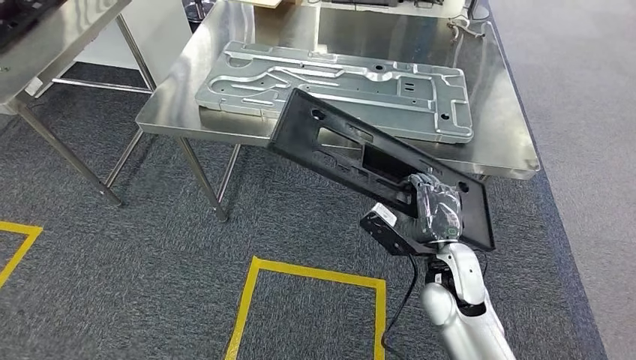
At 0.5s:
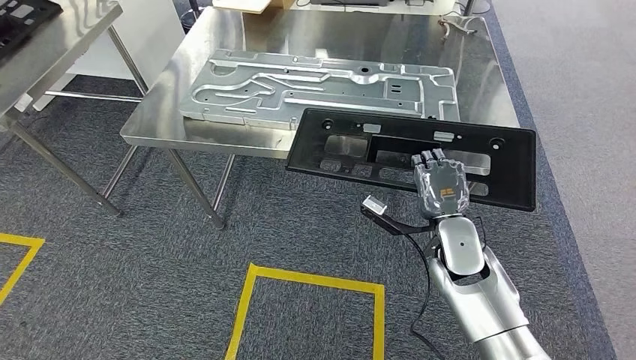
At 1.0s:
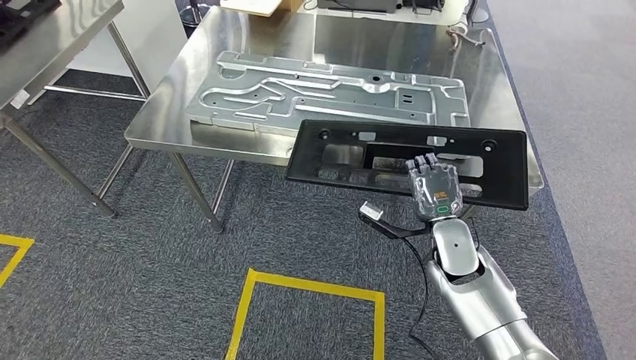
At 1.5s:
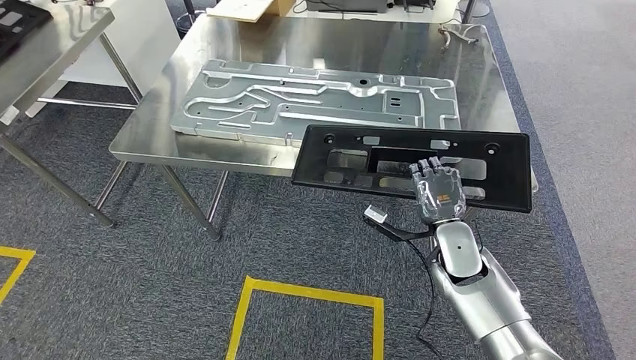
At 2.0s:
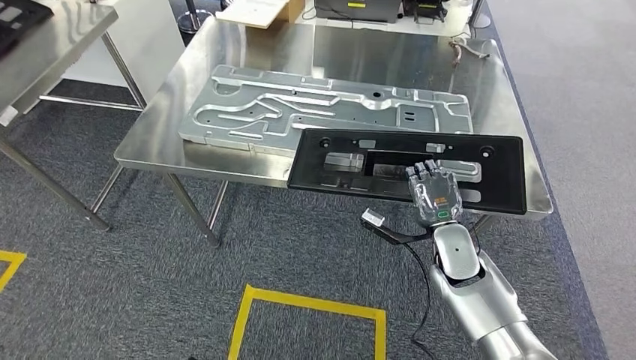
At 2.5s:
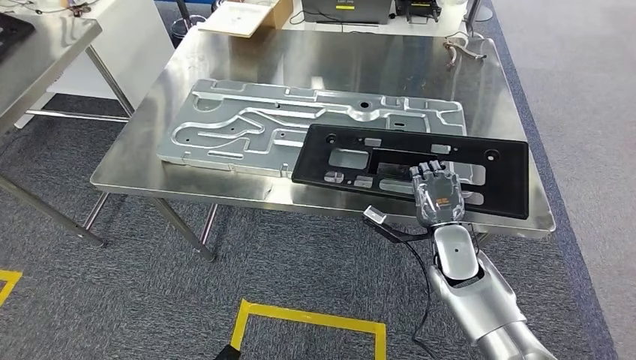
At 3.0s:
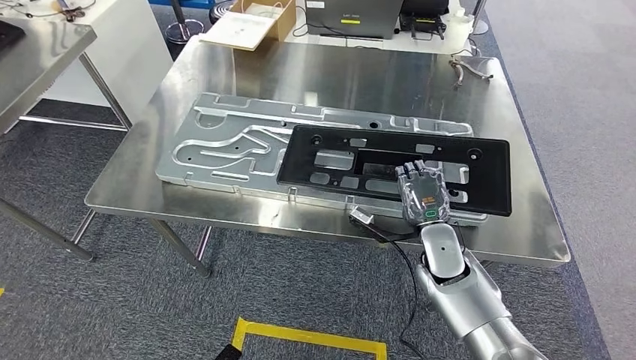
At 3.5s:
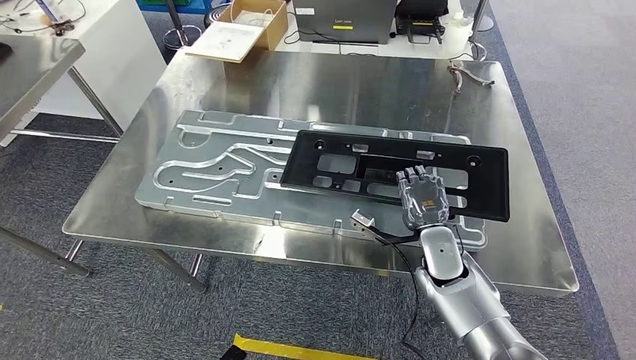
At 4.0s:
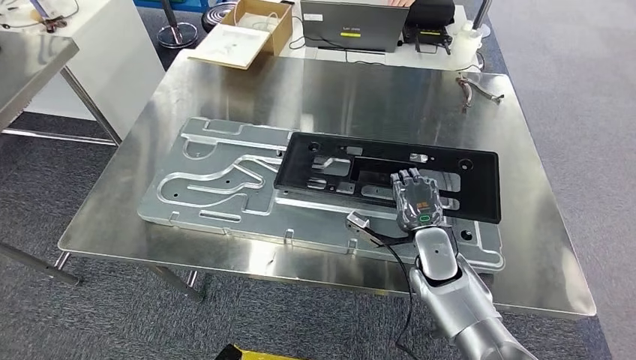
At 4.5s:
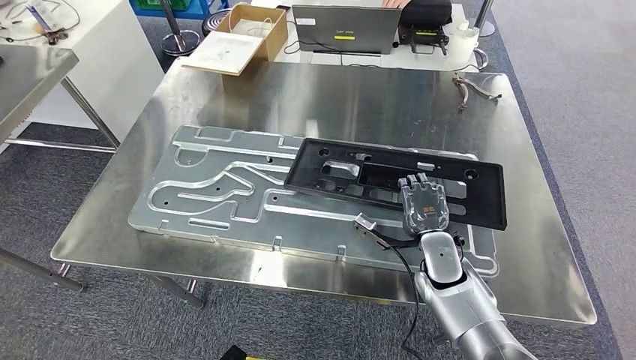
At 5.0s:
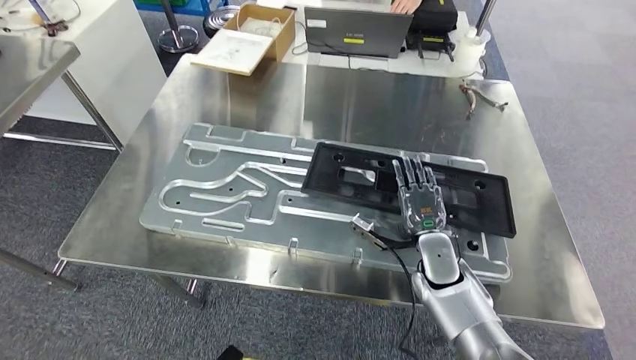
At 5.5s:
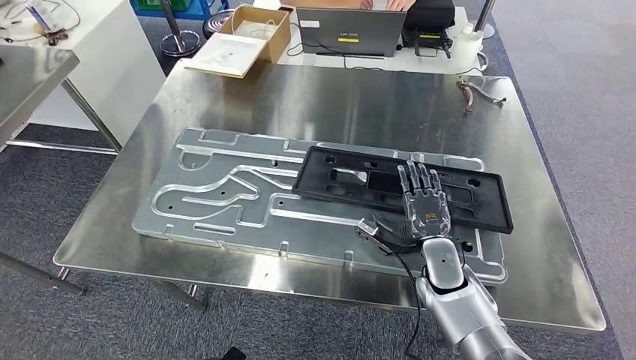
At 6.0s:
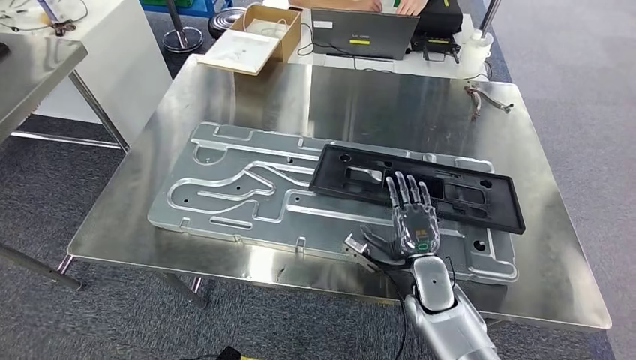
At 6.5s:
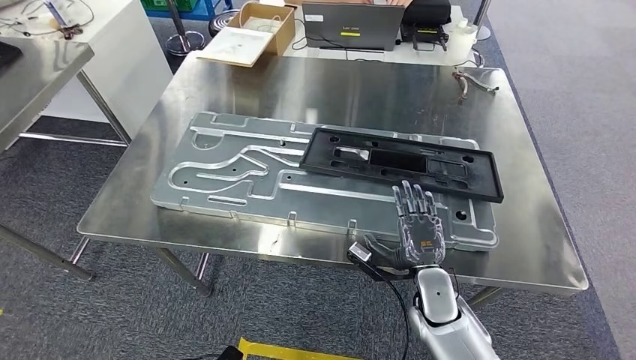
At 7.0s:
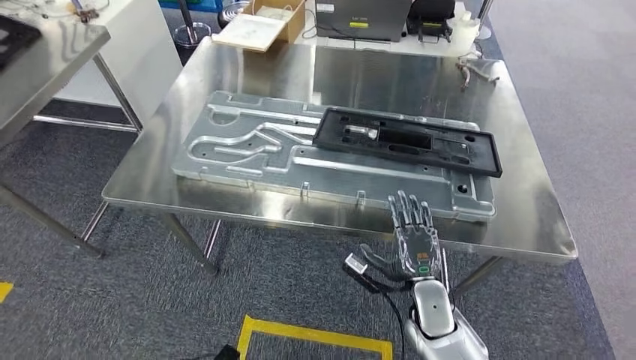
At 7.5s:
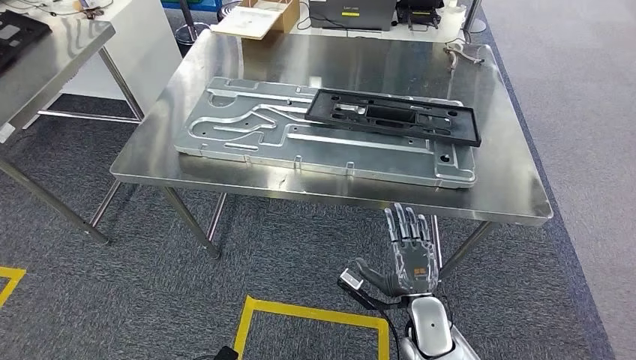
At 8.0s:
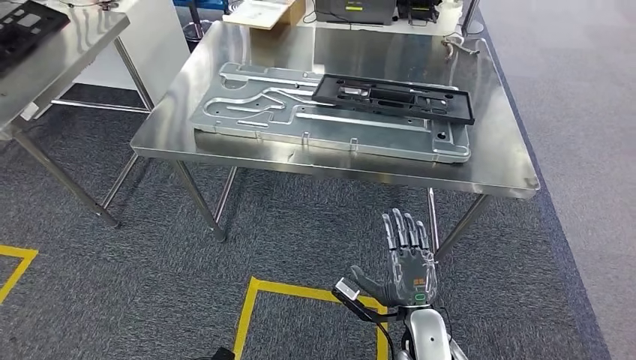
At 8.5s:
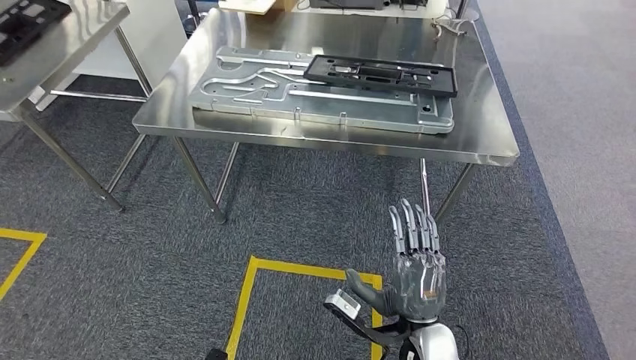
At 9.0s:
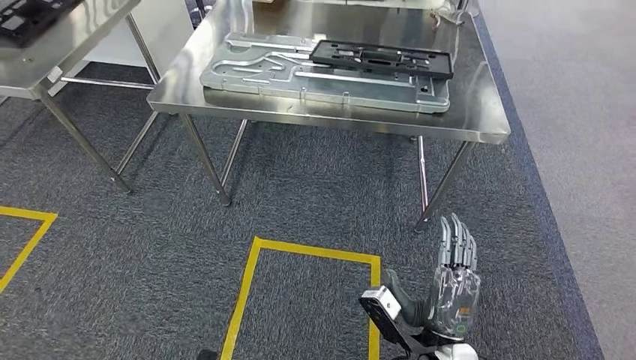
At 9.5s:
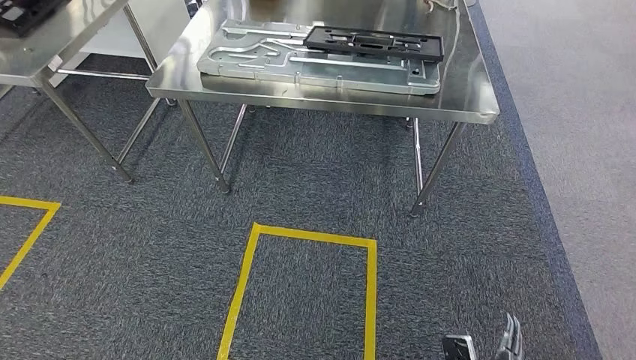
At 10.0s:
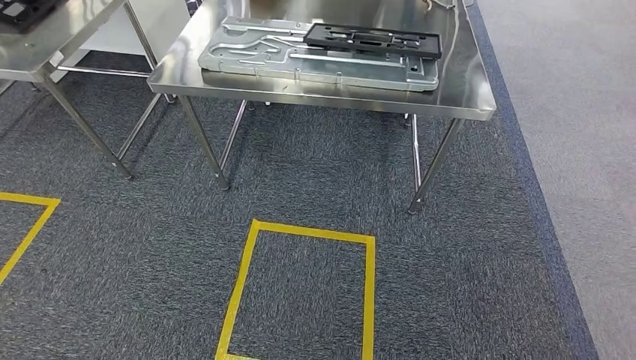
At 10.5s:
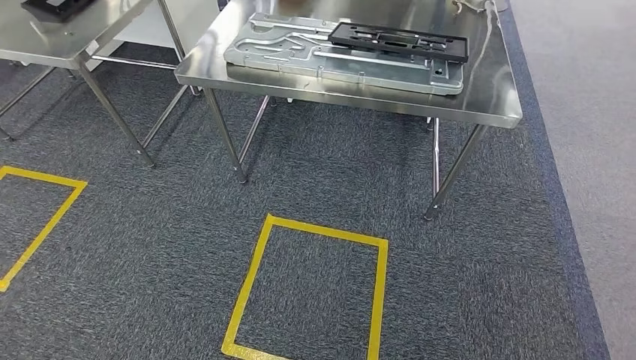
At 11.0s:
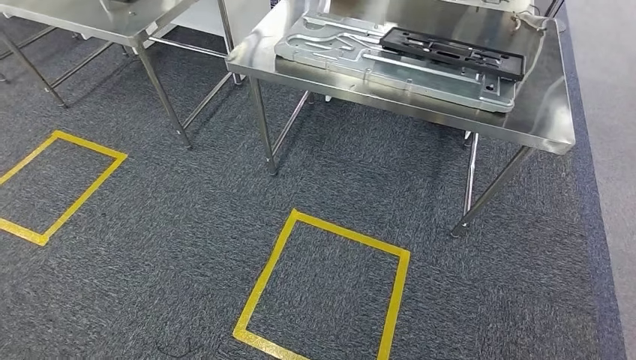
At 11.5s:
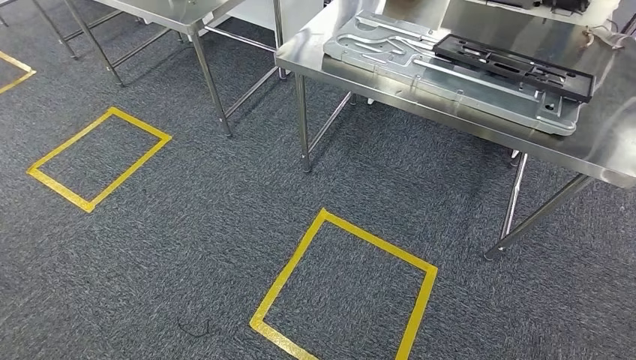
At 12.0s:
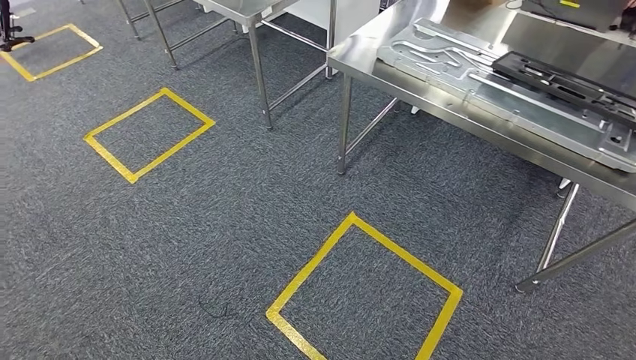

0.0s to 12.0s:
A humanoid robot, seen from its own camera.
Step, 0.0s to 7.0s: Insert the large material into the corresponding slot on the workbench.

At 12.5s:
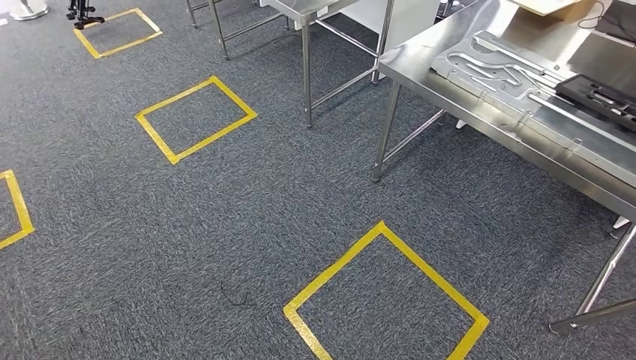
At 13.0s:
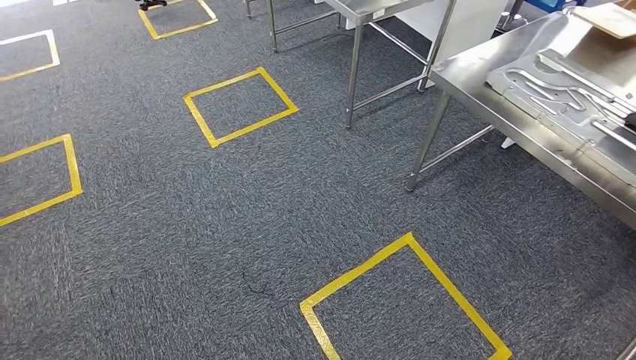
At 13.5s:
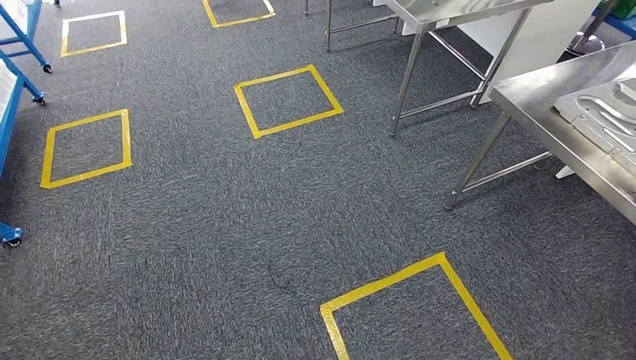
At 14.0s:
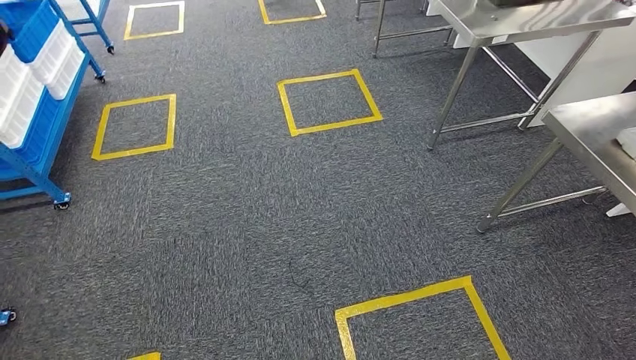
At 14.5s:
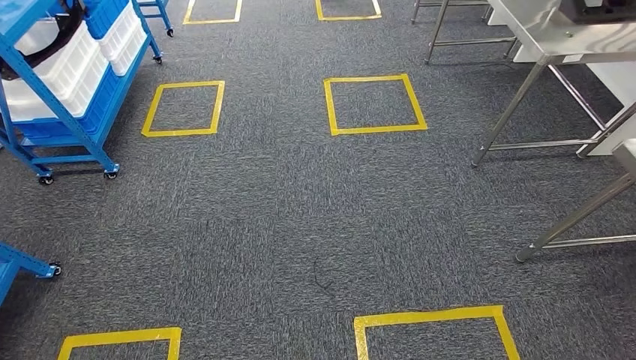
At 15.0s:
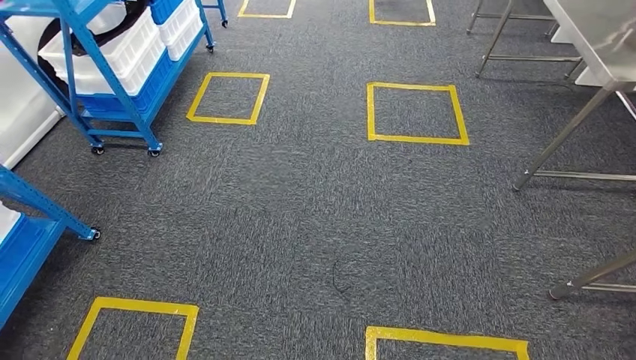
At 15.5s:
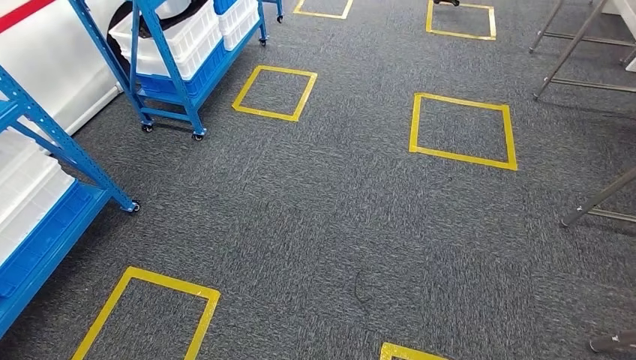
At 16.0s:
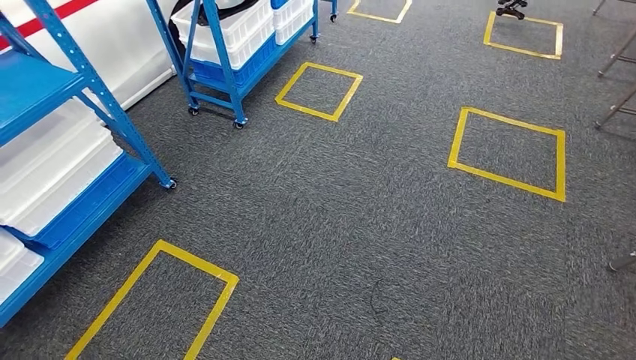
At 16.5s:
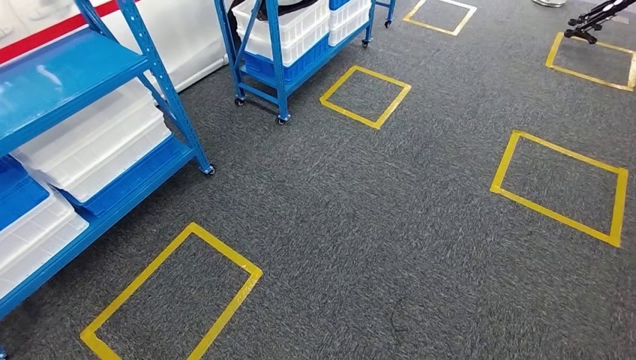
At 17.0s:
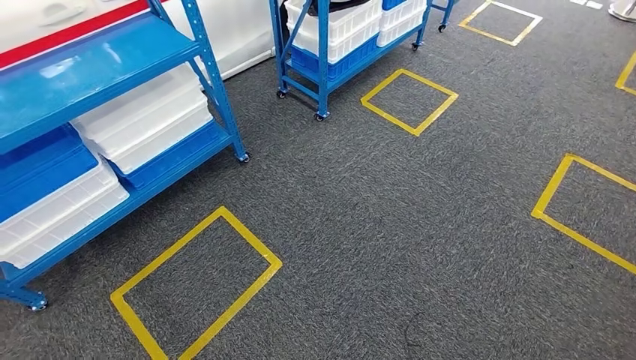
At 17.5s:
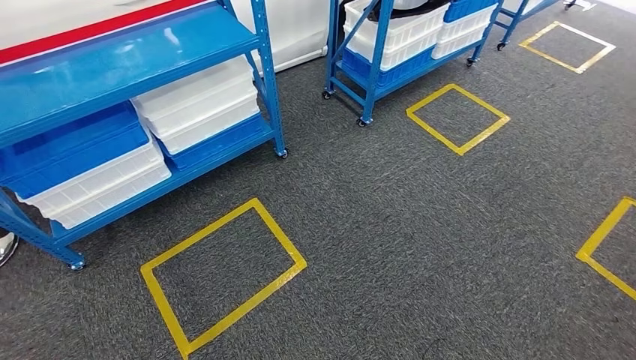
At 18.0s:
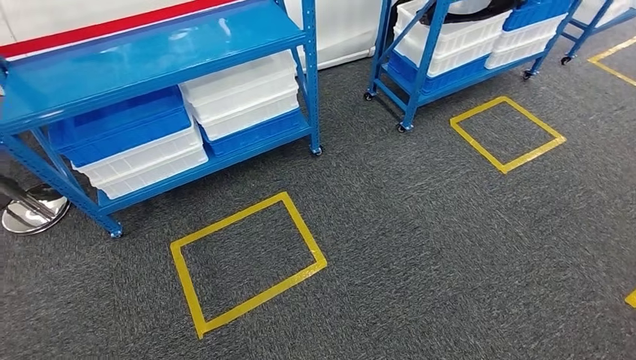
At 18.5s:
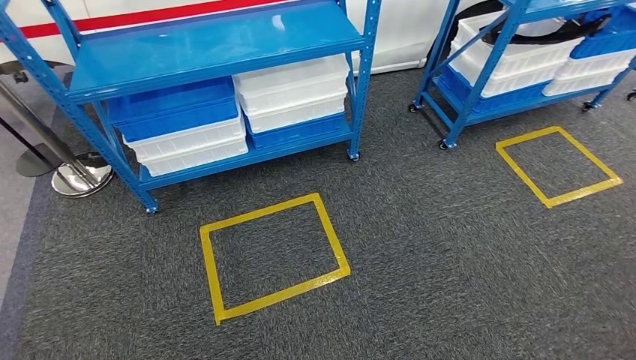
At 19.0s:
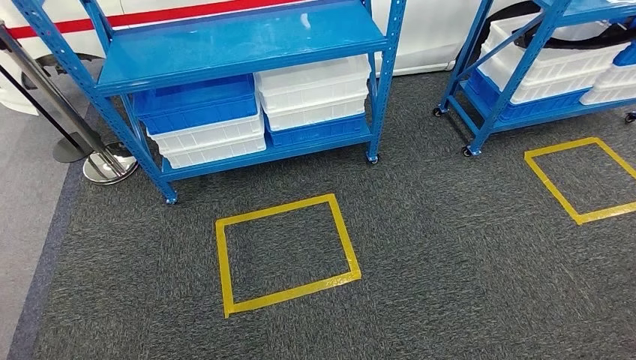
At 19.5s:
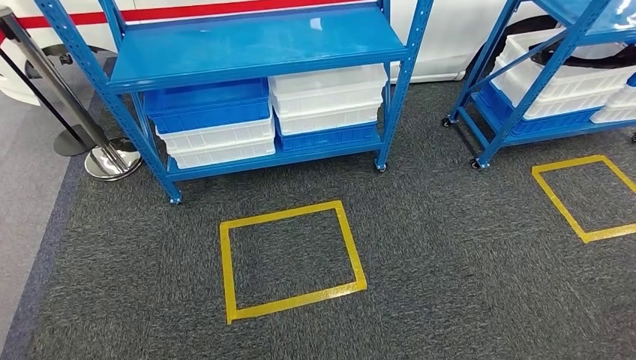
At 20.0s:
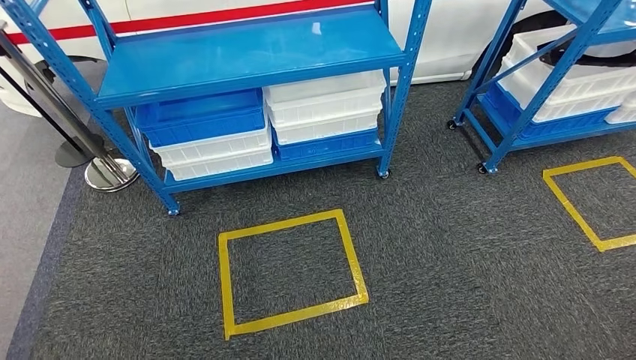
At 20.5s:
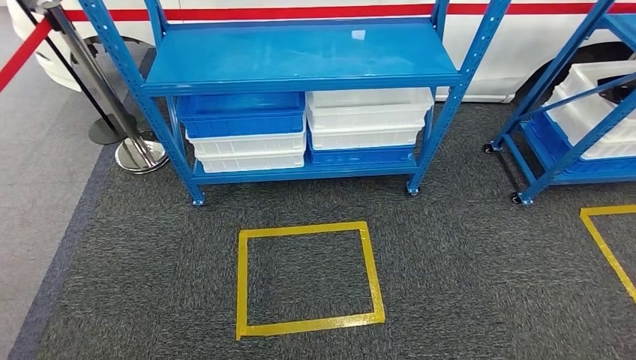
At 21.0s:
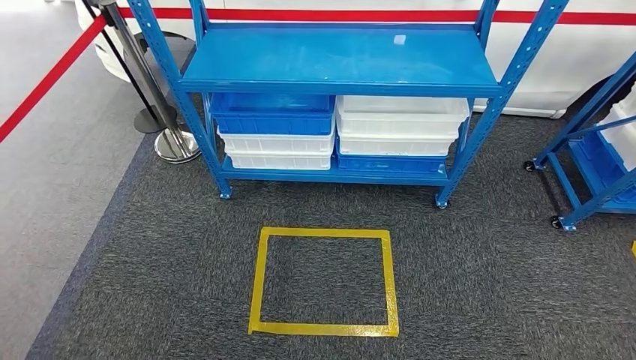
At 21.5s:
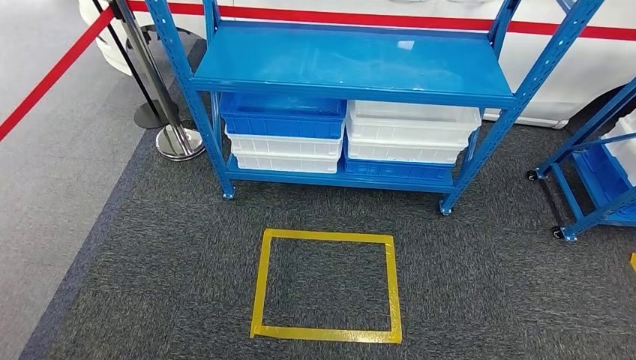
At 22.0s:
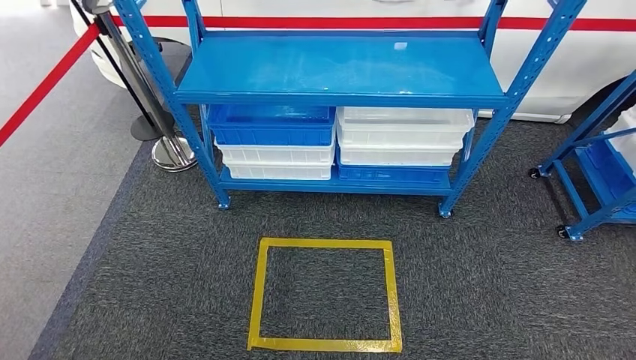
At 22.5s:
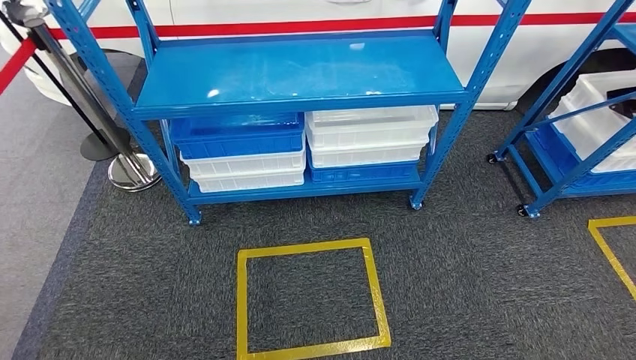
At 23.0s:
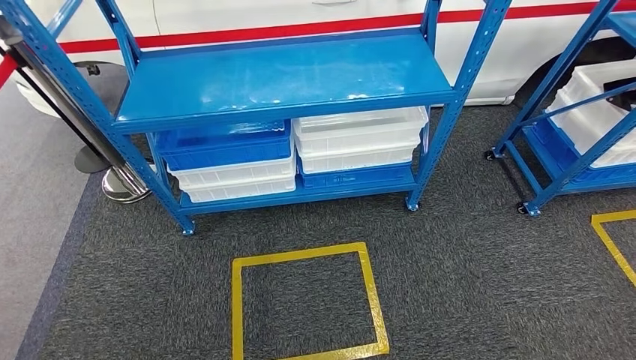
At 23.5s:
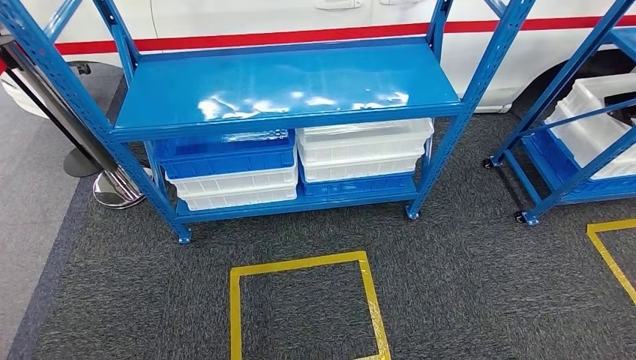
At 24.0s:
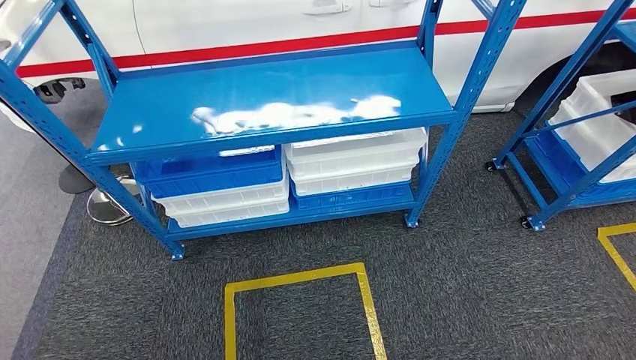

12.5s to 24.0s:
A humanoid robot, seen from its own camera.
Step, 12.5s to 24.0s: Move to the initial position of the shelf.
